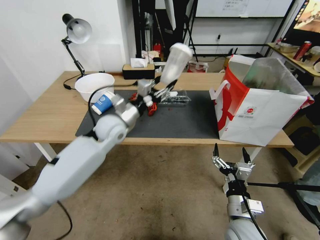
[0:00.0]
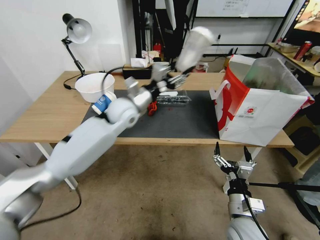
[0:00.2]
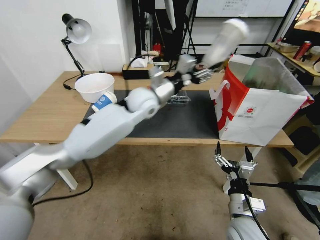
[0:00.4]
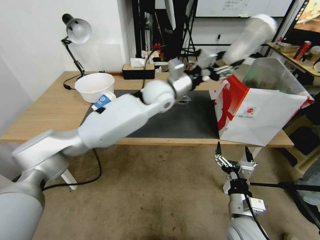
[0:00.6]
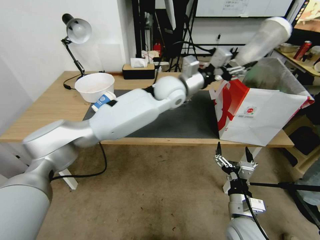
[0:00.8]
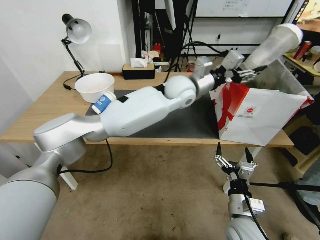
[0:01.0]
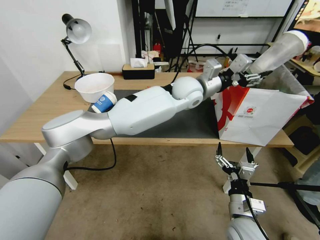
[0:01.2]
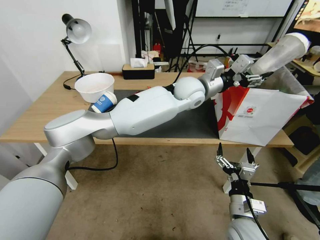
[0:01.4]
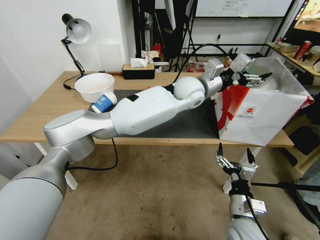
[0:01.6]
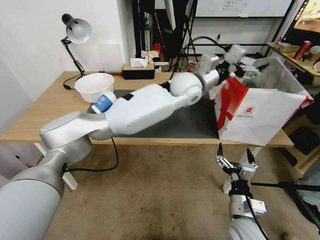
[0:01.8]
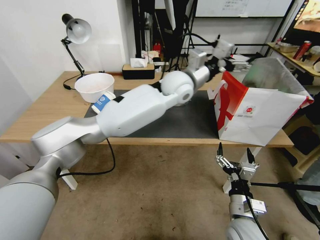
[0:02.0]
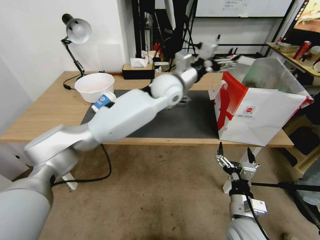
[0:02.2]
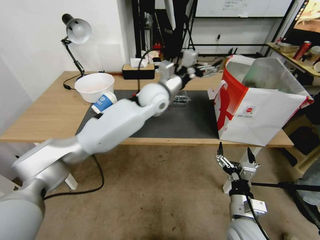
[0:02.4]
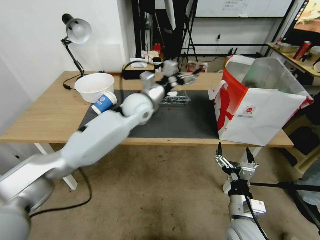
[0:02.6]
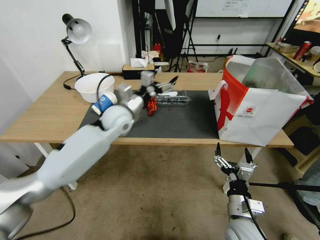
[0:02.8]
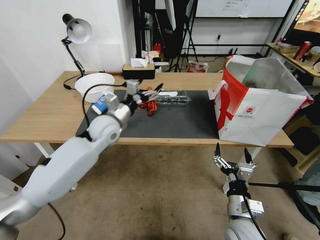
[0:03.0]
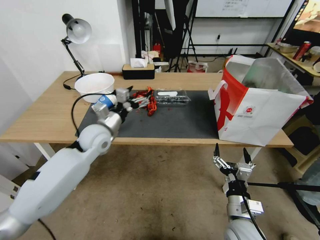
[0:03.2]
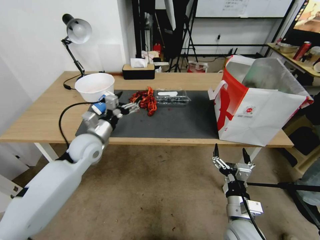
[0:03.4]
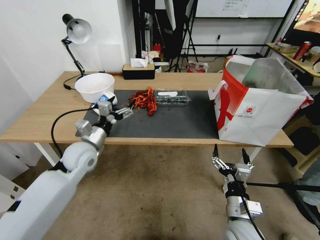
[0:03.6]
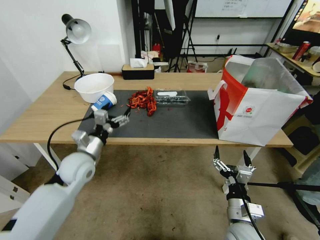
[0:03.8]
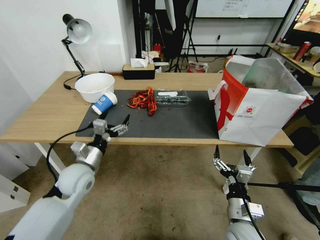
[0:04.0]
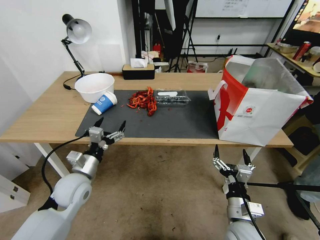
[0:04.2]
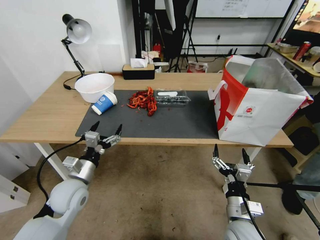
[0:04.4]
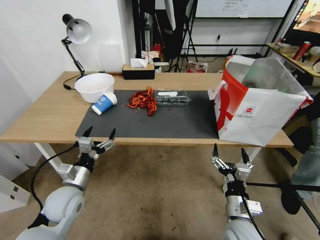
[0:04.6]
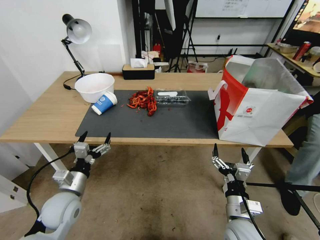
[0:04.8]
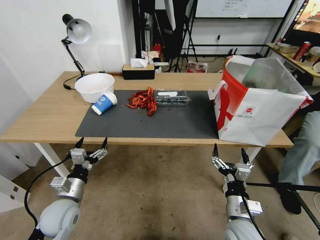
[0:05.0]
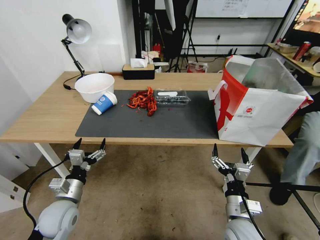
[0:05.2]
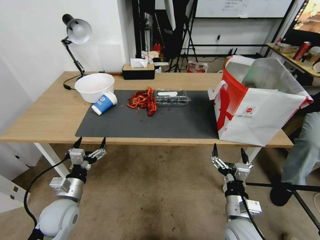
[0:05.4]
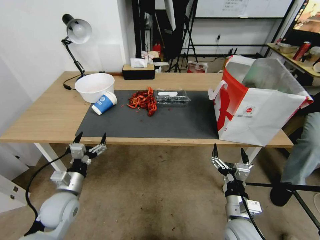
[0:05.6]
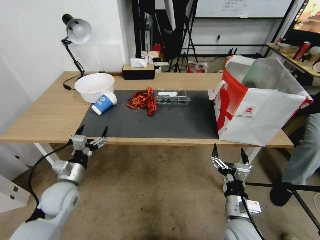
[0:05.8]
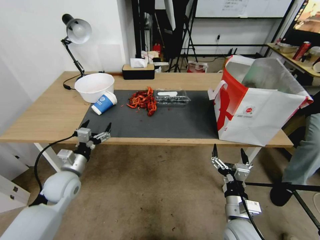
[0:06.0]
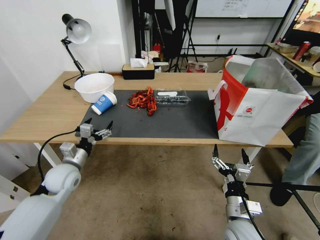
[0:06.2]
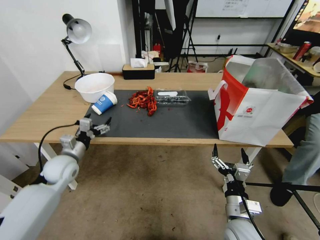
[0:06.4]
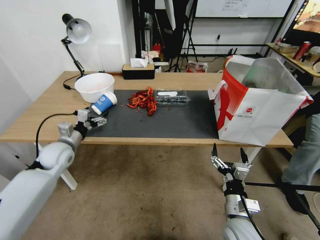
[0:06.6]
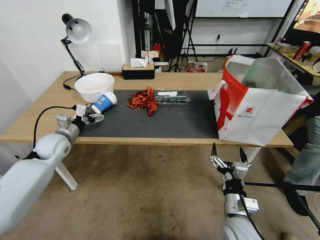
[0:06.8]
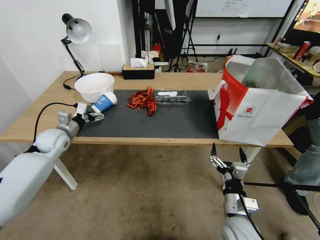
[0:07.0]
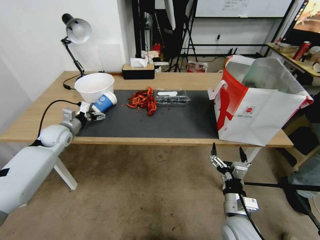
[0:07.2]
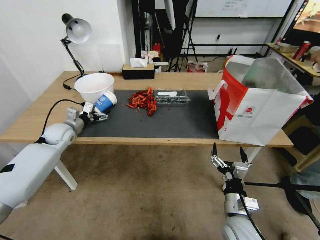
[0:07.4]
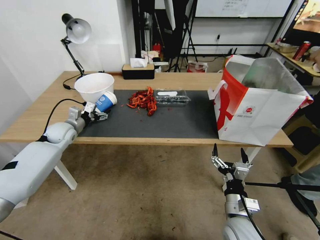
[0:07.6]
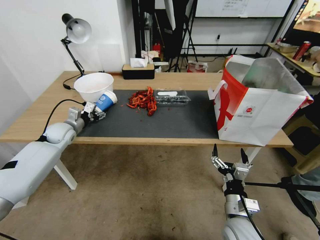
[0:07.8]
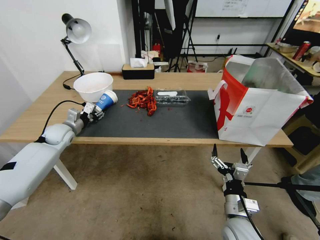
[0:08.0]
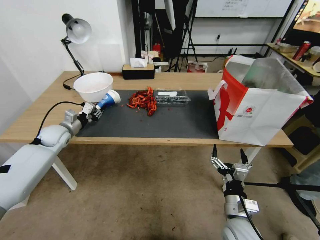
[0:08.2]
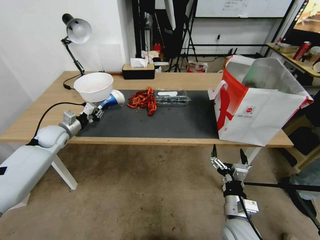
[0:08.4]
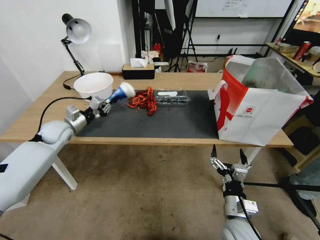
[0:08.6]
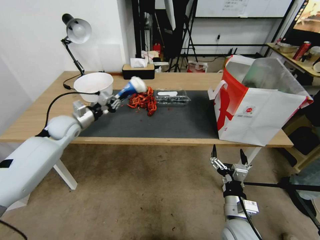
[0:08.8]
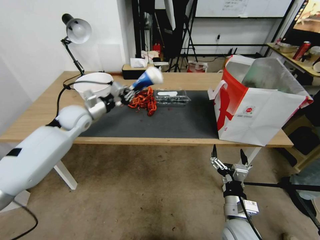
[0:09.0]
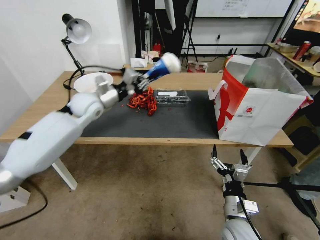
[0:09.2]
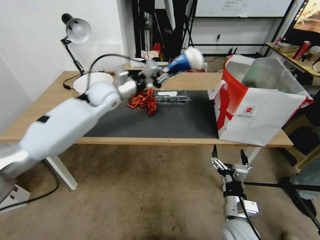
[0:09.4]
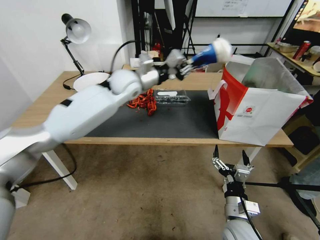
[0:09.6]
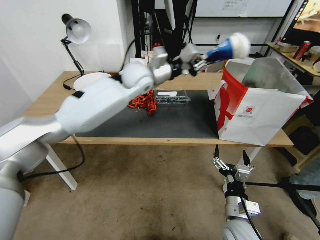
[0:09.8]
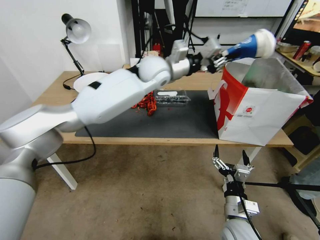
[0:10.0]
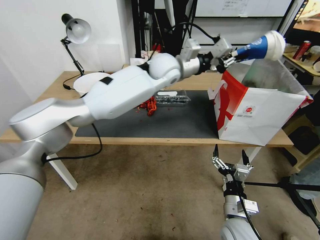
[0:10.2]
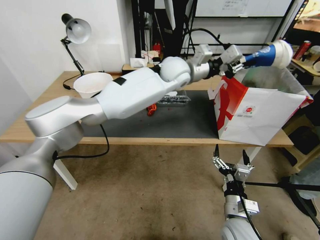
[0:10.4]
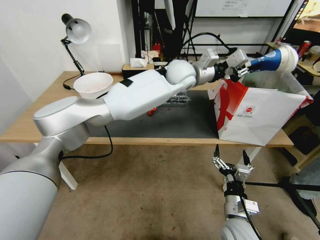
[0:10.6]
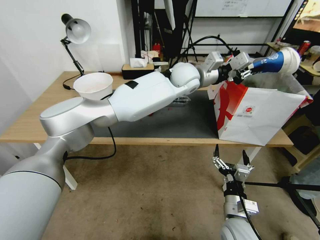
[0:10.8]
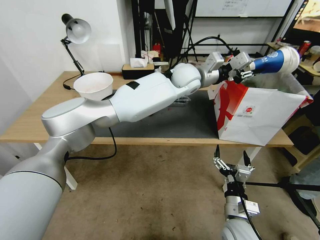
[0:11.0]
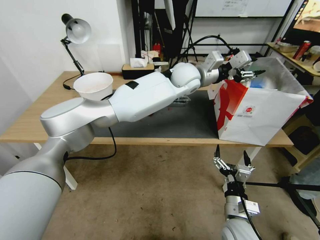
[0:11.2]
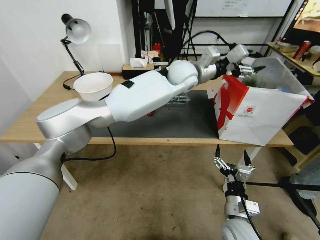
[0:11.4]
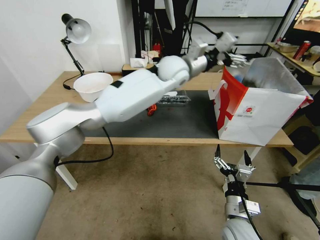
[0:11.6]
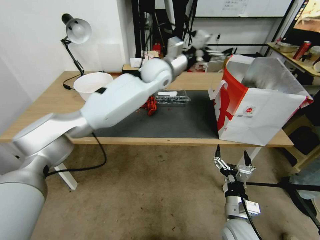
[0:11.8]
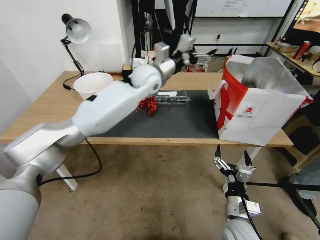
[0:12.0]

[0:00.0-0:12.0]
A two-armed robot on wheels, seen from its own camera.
0:00.0 to 0:01.6: The left gripper goes some 25 cm to the right and upward.
0:01.6 to 0:03.0: The left gripper heads to the left, covering some 30 cm.
0:03.0 to 0:04.4: The left gripper travels backward, downward and to the left by roughly 20 cm.
0:04.4 to 0:06.0: The left gripper ends up about 5 cm from where it was.
0:06.0 to 0:07.6: The left gripper heads forward and to the left, covering roughly 20 cm.
0:07.6 to 0:09.0: The left gripper moves to the right and upward, some 15 cm, and closes up.
0:09.0 to 0:10.4: The left gripper goes some 35 cm to the right and upward.
0:10.4 to 0:12.0: The left gripper is displaced to the left by about 10 cm, and opens up.

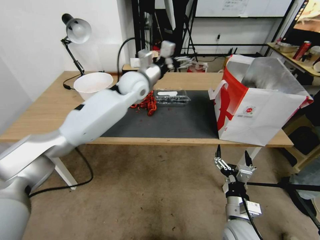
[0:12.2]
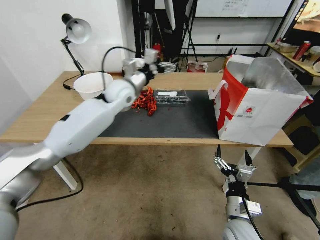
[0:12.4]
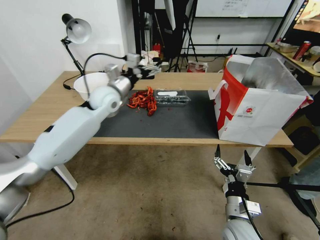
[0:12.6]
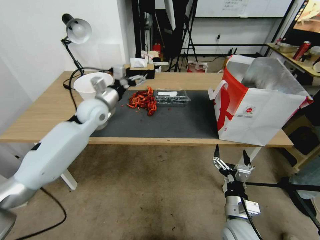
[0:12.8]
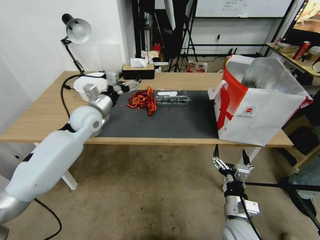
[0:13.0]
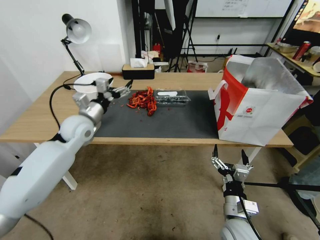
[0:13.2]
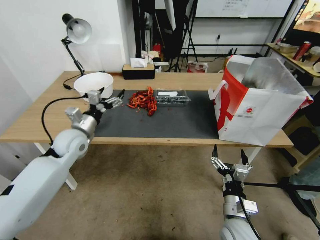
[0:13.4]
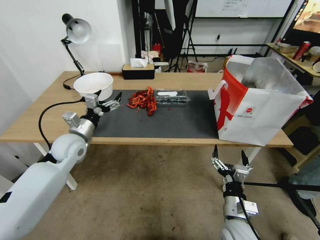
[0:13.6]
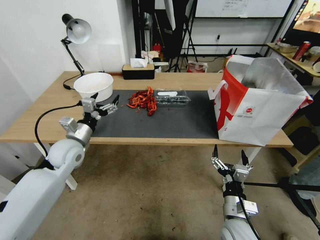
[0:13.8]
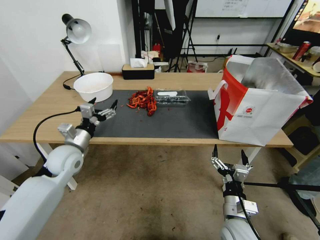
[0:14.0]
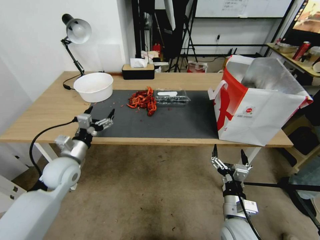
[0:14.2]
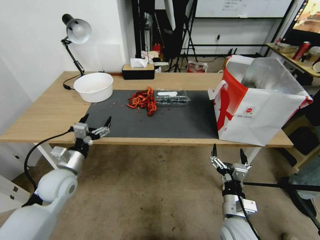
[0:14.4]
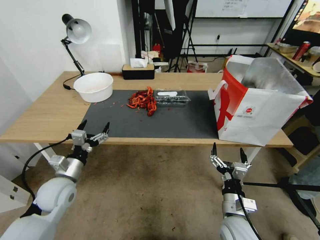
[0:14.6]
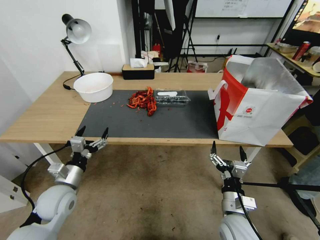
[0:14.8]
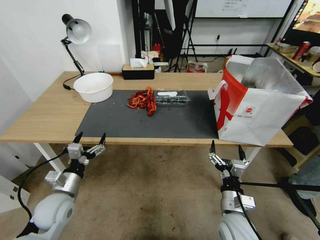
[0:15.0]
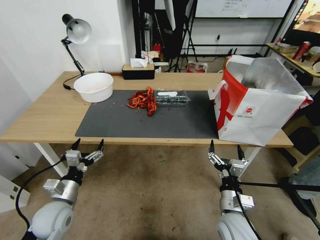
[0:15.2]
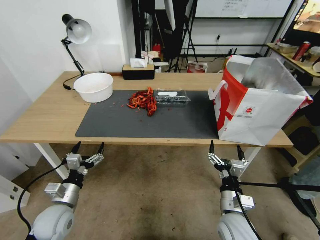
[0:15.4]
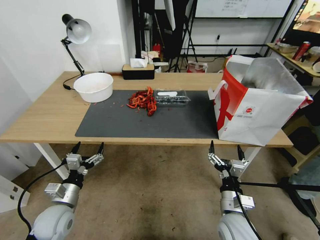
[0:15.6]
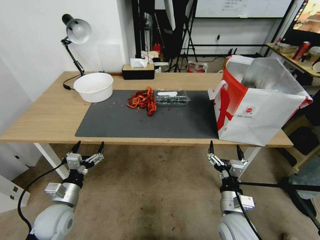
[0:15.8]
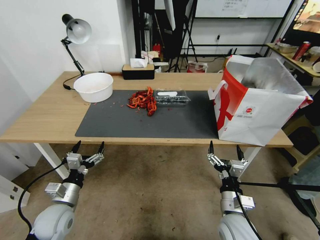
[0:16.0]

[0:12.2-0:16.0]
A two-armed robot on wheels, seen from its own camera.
0:12.2 to 0:13.4: The left gripper travels to the left, backward and downward by some 25 cm.
0:13.4 to 0:14.8: The left gripper shifts about 15 cm backward and downward.
0:14.8 to 0:16.0: The left gripper ends up roughly 5 cm from where it was.

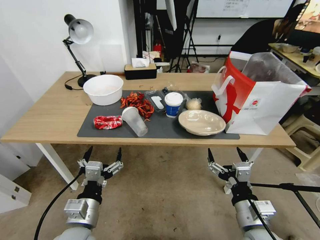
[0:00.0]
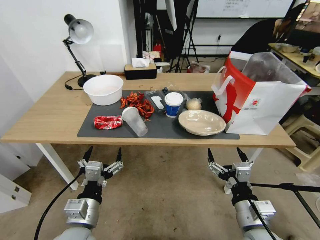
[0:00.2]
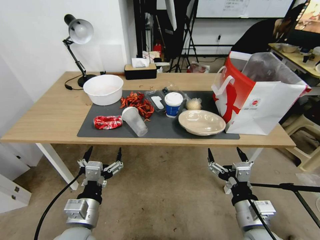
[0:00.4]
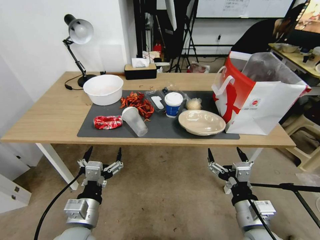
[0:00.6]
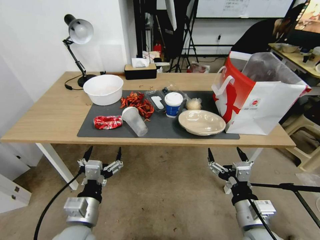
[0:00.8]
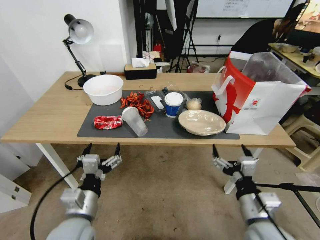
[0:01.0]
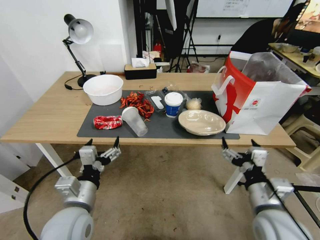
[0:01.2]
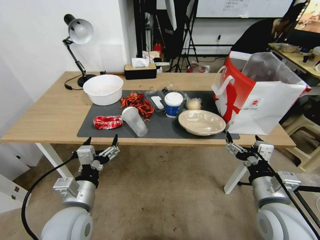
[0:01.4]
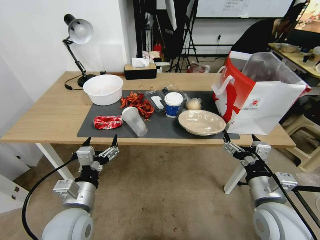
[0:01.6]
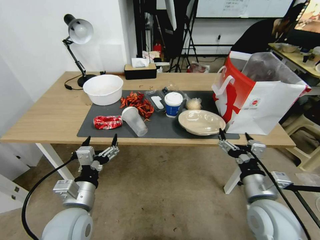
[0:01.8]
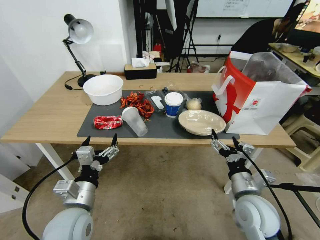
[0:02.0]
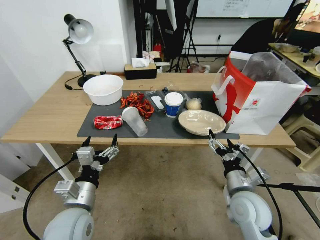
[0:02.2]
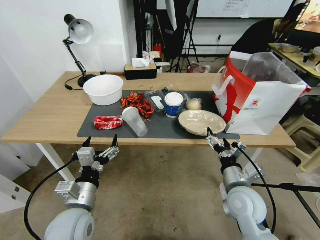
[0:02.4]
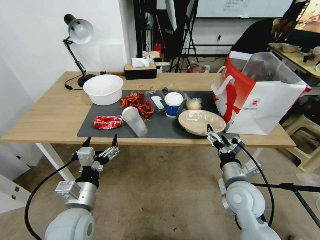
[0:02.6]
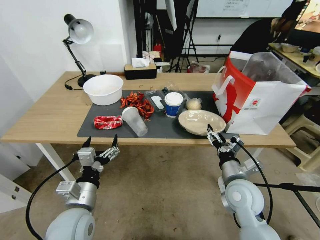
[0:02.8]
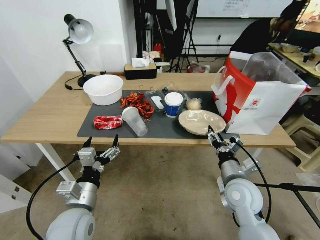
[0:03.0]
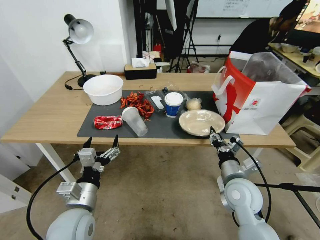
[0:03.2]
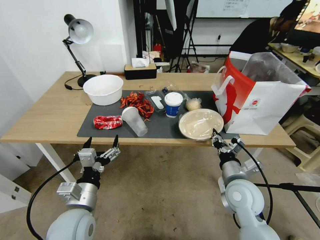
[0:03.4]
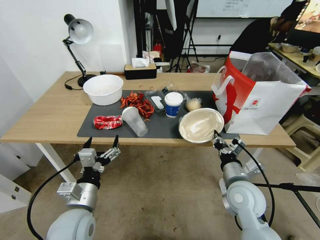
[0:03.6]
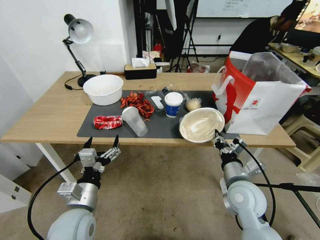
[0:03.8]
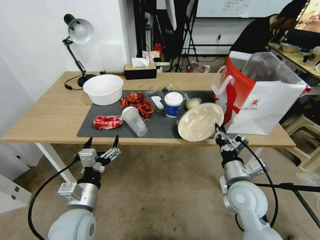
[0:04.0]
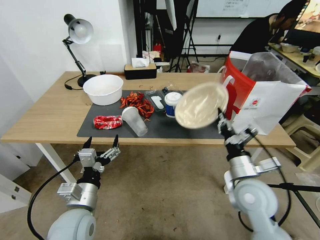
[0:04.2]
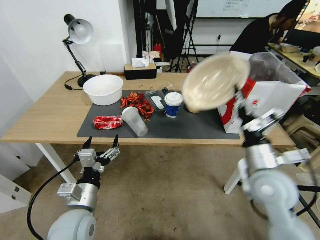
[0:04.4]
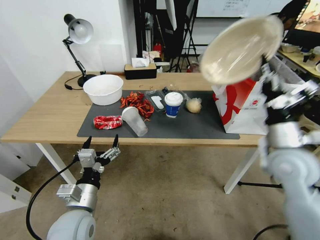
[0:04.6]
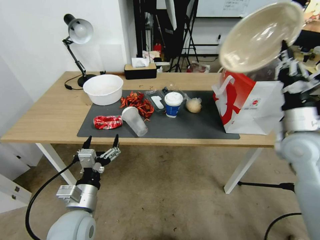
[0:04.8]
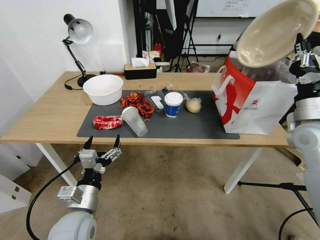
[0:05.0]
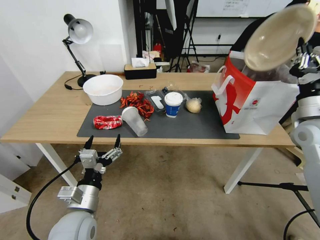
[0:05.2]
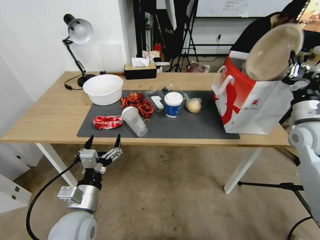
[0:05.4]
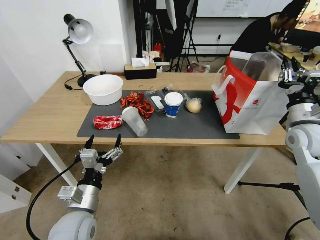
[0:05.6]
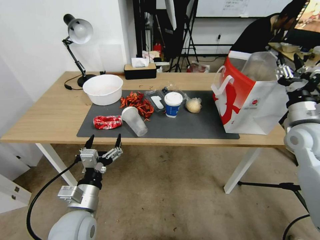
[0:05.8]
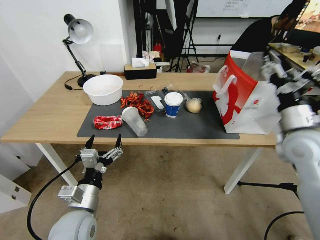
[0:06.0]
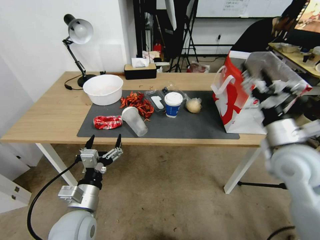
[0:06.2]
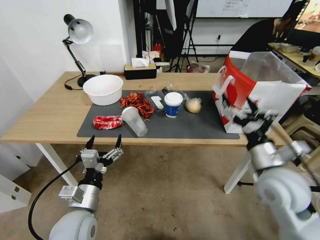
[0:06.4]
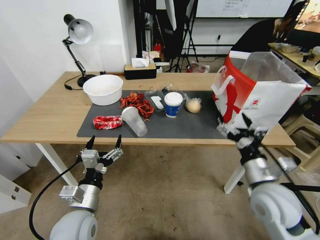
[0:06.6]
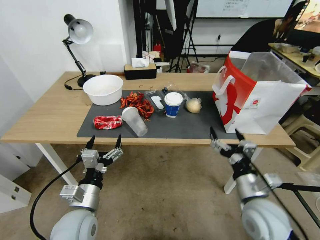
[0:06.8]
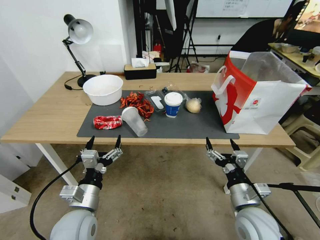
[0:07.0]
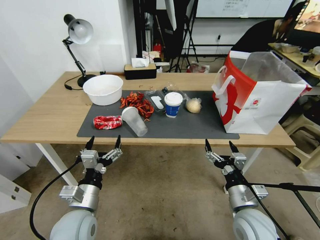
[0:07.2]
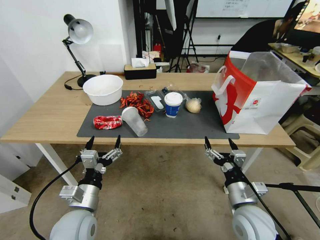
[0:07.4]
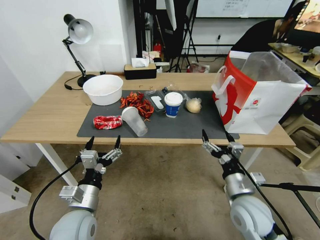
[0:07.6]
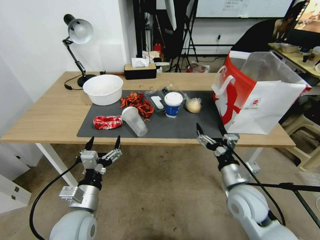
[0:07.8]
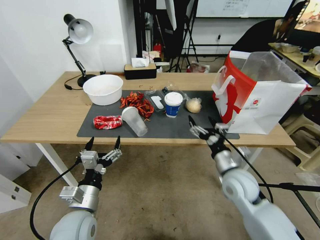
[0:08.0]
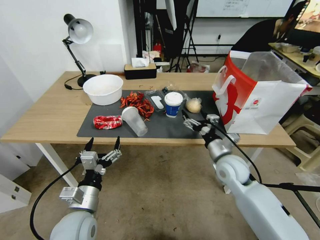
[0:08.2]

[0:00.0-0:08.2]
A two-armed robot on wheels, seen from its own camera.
0:01.6 to 0:03.2: The right gripper heads forward, covering some 10 cm, and closes.
0:03.2 to 0:05.0: The right gripper moves upward, to the right and forward, about 25 cm.
0:05.0 to 0:06.6: The right gripper is displaced backward, to the left and downward by approximately 20 cm, and opens.
0:06.6 to 0:08.2: The right gripper heads forward and downward, covering roughly 15 cm.
